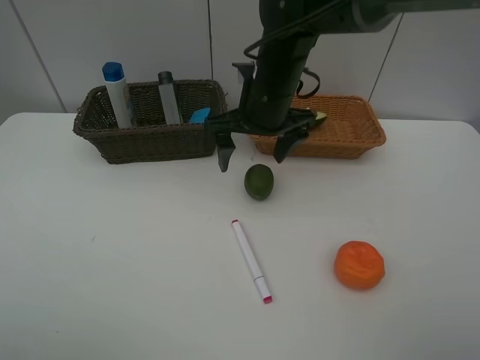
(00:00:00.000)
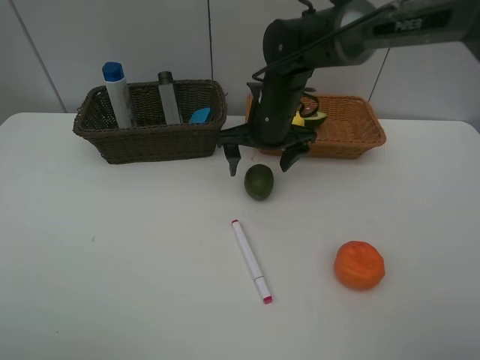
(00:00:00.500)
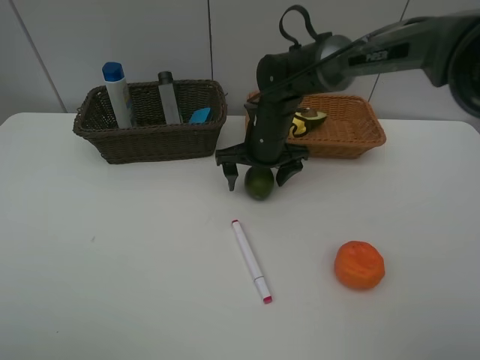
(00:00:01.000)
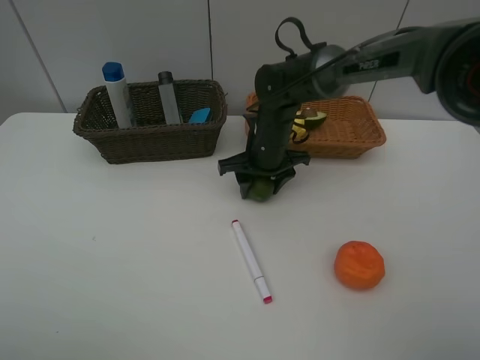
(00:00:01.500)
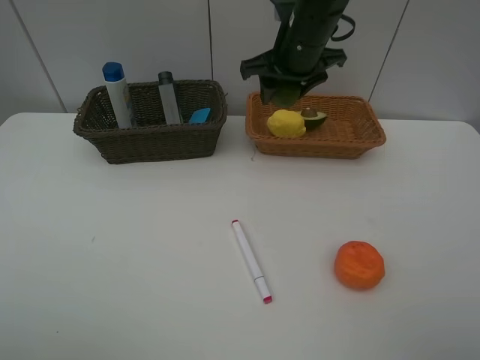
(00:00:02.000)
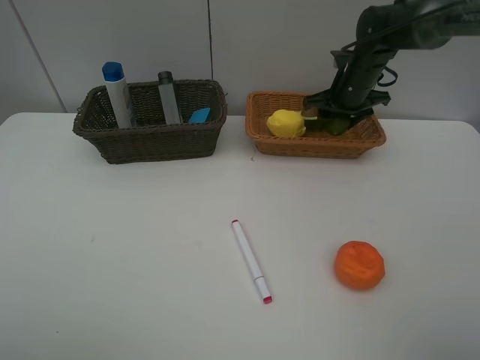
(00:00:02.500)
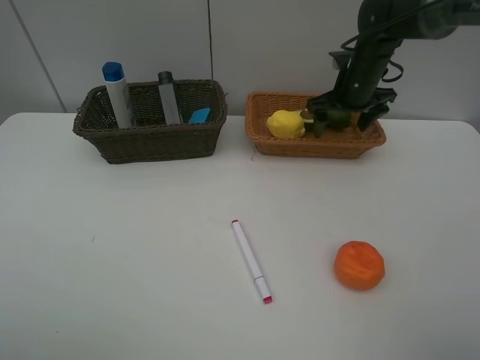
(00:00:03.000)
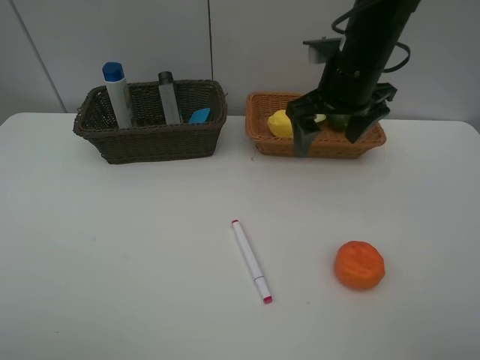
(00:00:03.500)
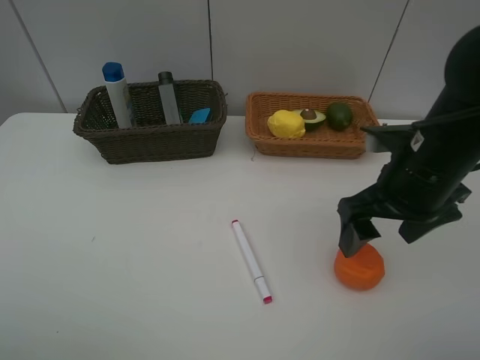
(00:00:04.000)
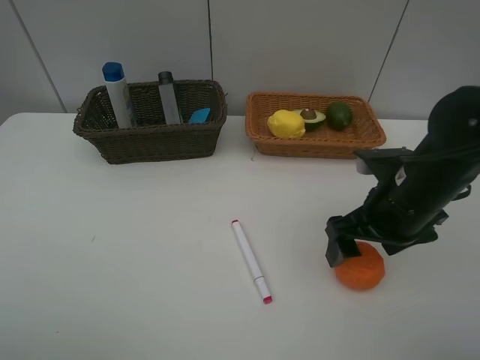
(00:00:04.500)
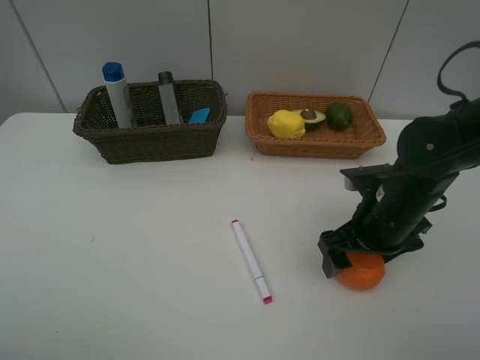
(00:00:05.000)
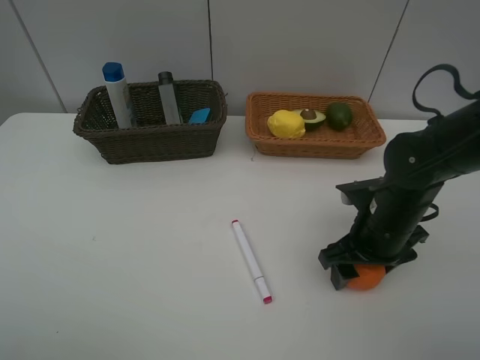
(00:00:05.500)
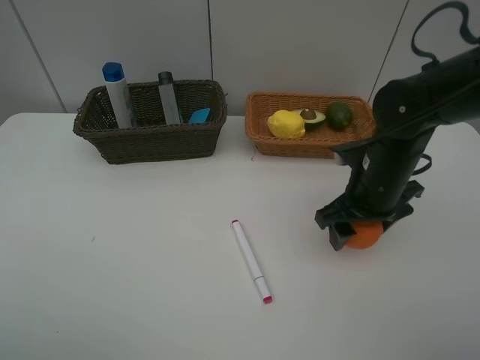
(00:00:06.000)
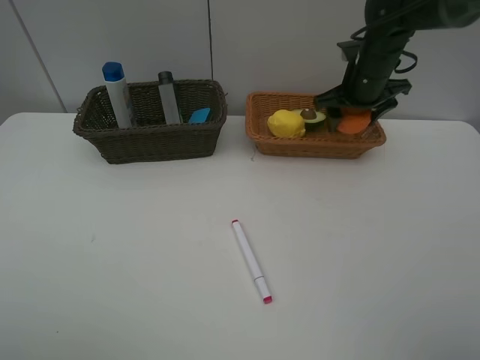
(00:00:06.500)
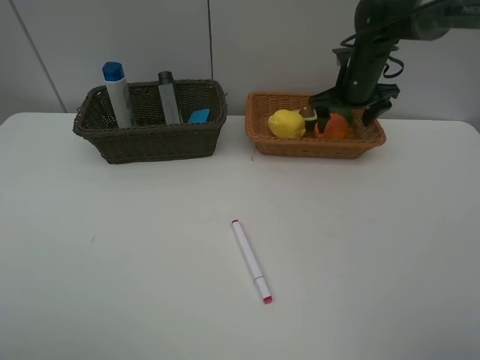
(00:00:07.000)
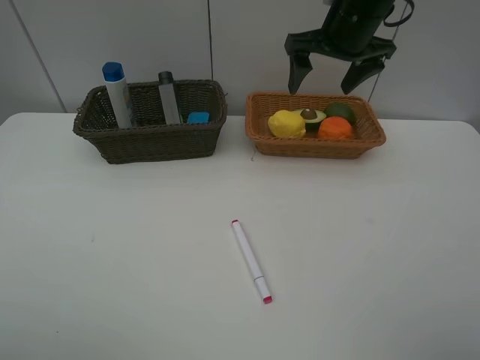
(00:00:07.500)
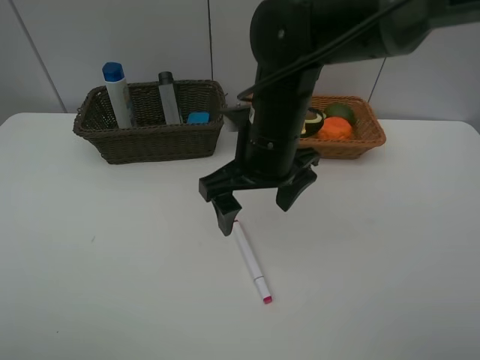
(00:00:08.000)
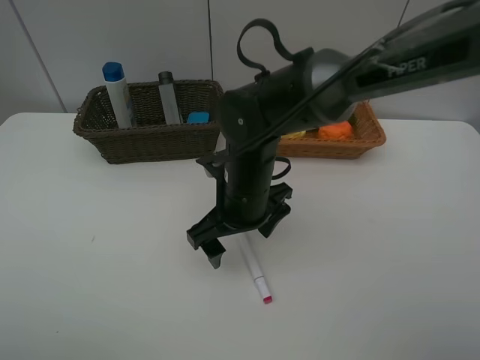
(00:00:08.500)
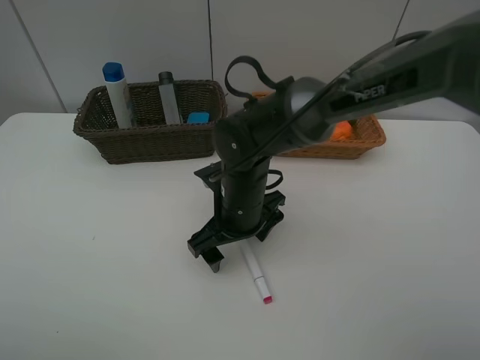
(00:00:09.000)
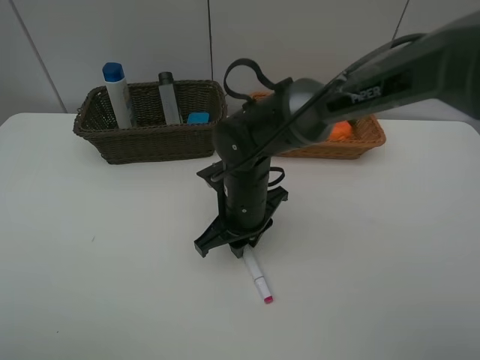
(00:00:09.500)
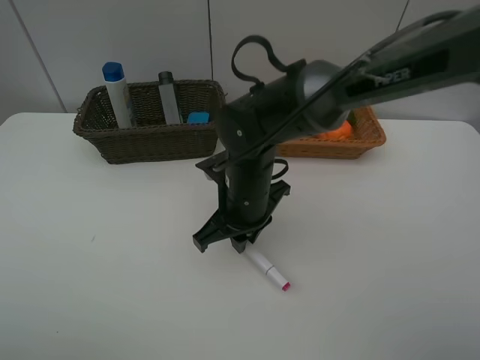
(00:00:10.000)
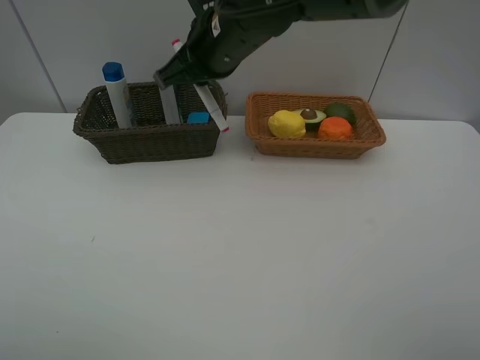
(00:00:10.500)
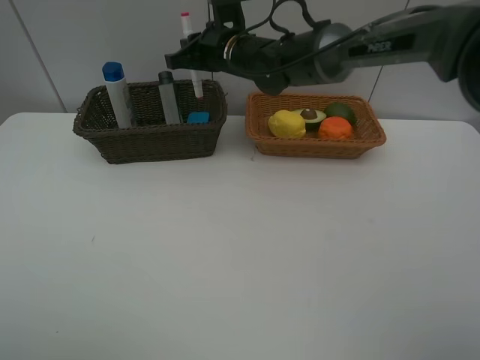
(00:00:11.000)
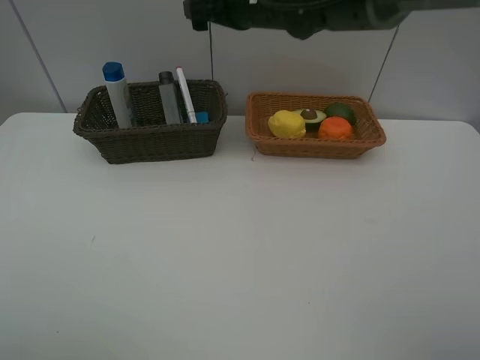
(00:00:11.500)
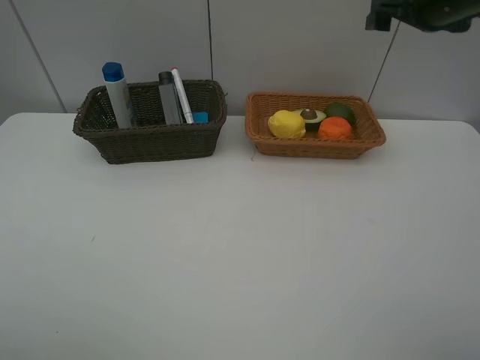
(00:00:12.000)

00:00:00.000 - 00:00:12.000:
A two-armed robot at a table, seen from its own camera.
Task of the whole recording: Place multiple objects separately in different baskets.
Step, 00:00:00.000 - 00:00:01.500: Pick up the lime with right gripper.
Step, 00:00:02.000 - 00:00:03.000: Place the lime in the light basket with right gripper.
Step, 00:00:03.500 - 00:00:06.000: Pick up the orange with right gripper.
Step, 00:00:06.500 - 00:00:07.000: Place the orange in the light basket with right gripper.
Step, 00:00:07.500 - 00:00:10.000: Pick up the red marker with right gripper.
Step, 00:00:10.500 - 00:00:11.000: Place the red marker in the dark basket with right gripper.
00:00:00.000 - 00:00:02.000: The right gripper goes roughly 10 cm forward and to the right, reaches approximately 10 cm downward, then returns, and closes up.
00:00:02.000 - 00:00:04.000: The right gripper shifts some 20 cm backward and to the right, and opens up.
00:00:04.000 - 00:00:06.000: The right gripper shifts about 5 cm forward.
00:00:06.000 - 00:00:08.000: The right gripper is displaced to the left by approximately 15 cm, and travels forward and back again, some 20 cm each way.
00:00:08.000 - 00:00:10.000: The right gripper moves downward, about 5 cm, and closes its fingers.
00:00:10.000 - 00:00:12.000: The right gripper moves to the right, upward and forward, approximately 35 cm, and opens its fingers.

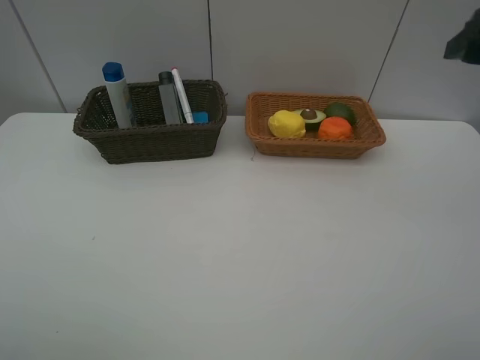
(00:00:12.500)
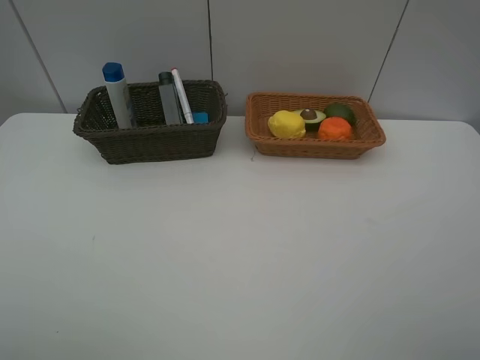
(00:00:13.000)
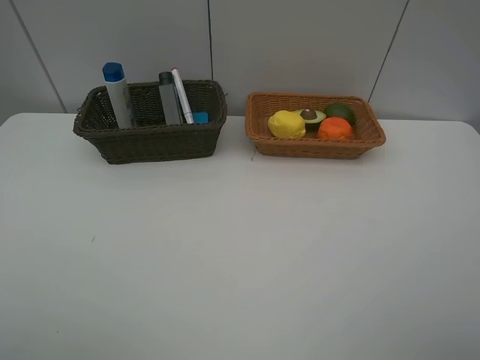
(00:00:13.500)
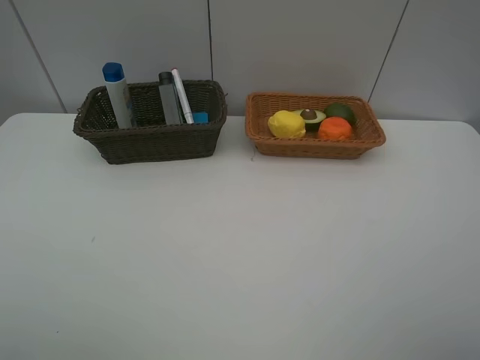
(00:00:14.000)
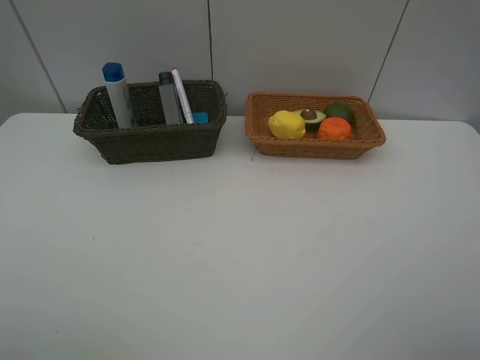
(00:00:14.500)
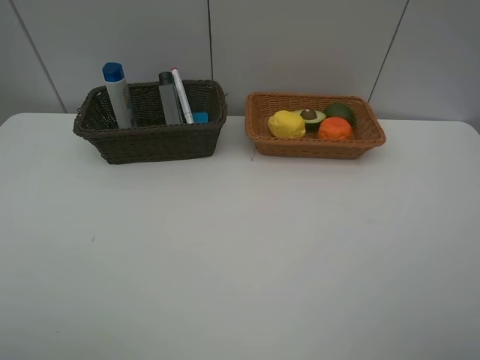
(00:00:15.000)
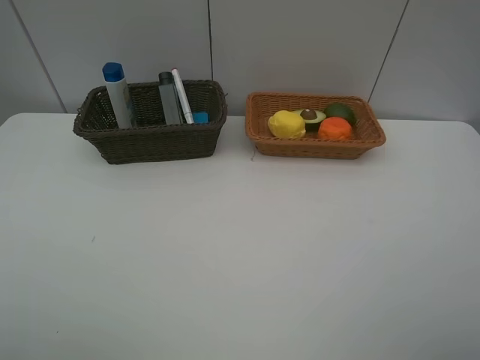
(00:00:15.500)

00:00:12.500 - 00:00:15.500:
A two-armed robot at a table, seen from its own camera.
Task of the whole recording: Place multiple objects separately in different baskets.
00:00:12.500 - 00:00:14.000: The right gripper heads backward, covering roughly 25 cm.
00:00:14.000 - 00:00:15.500: Both grippers stay put.
